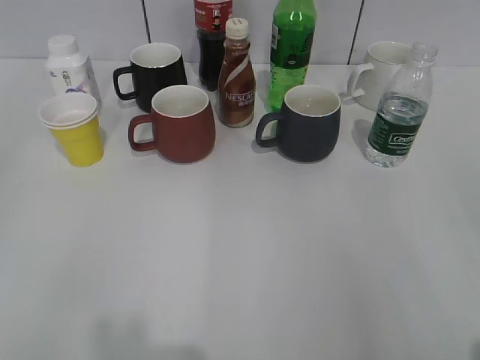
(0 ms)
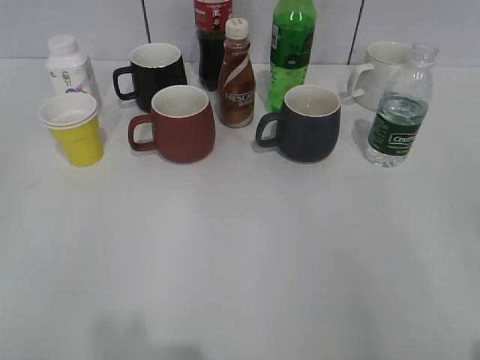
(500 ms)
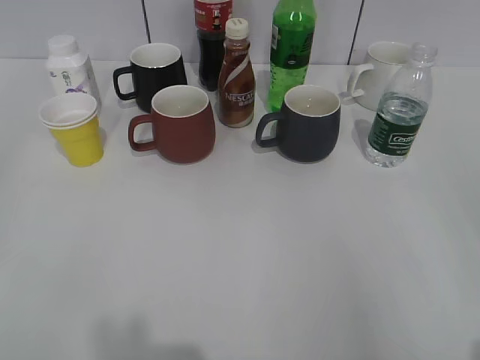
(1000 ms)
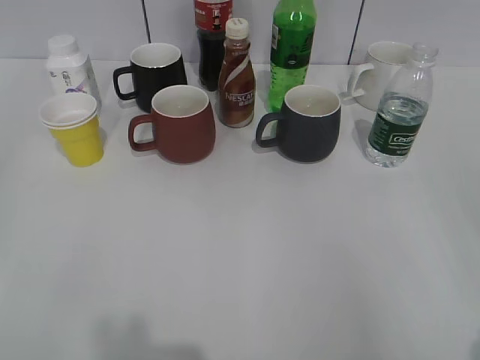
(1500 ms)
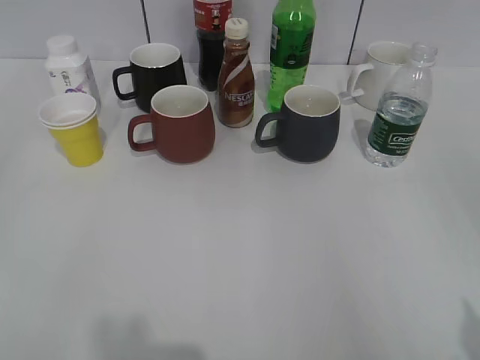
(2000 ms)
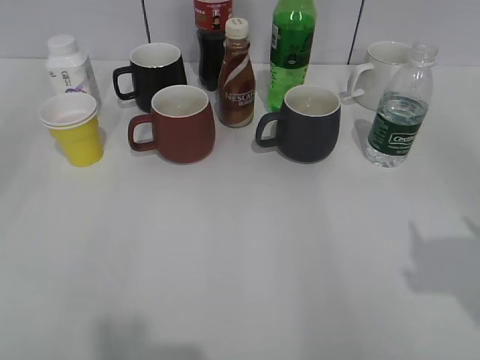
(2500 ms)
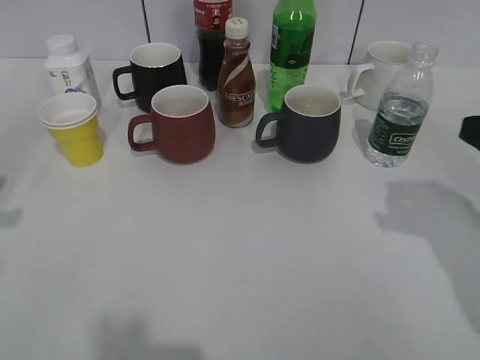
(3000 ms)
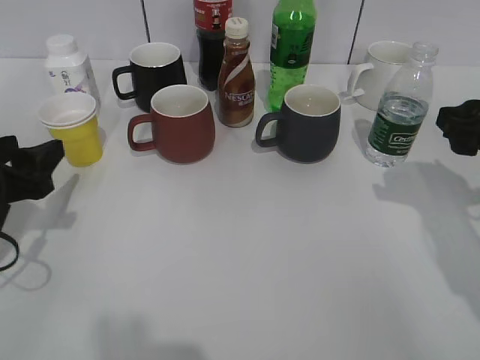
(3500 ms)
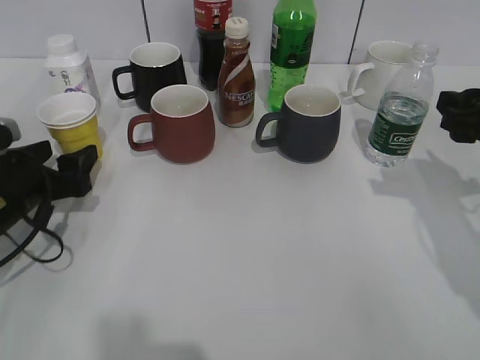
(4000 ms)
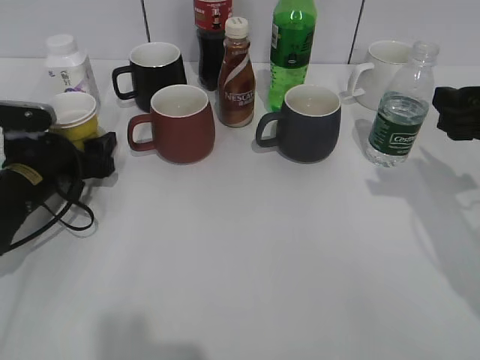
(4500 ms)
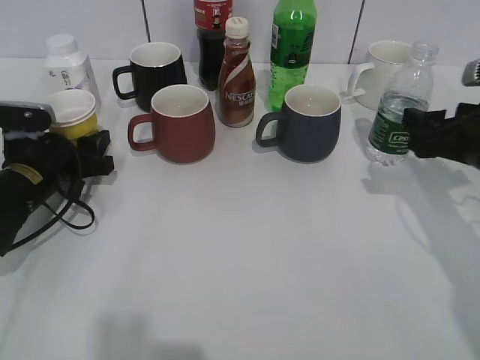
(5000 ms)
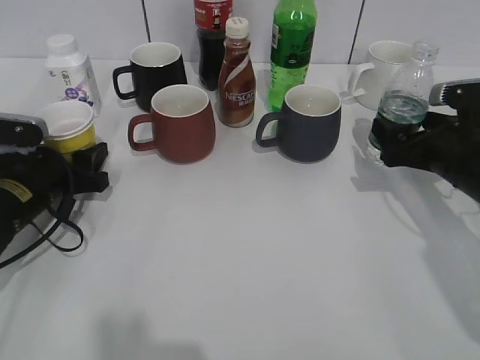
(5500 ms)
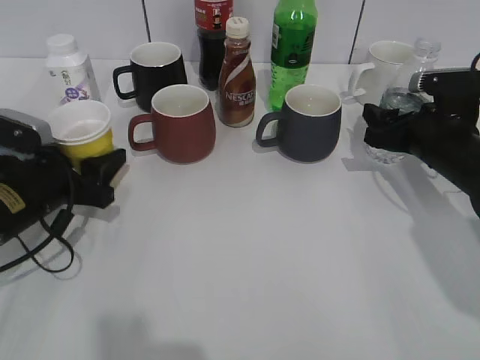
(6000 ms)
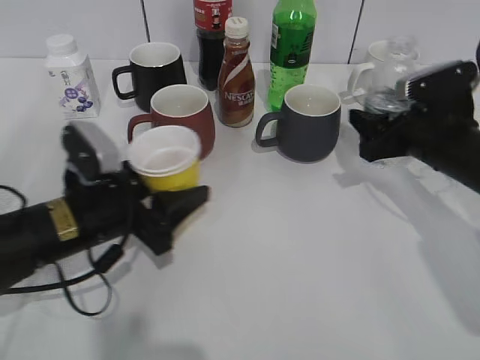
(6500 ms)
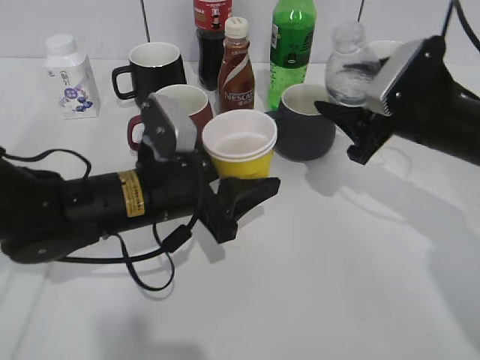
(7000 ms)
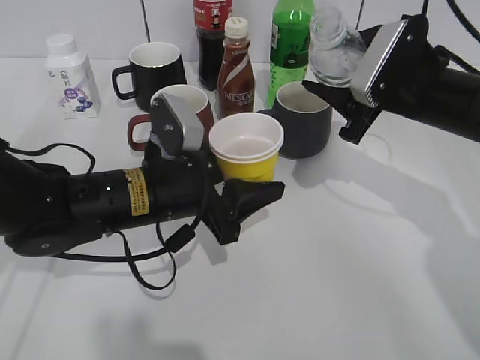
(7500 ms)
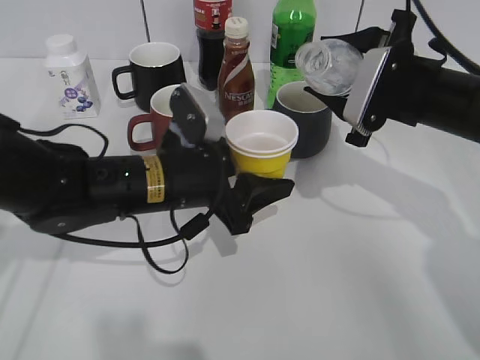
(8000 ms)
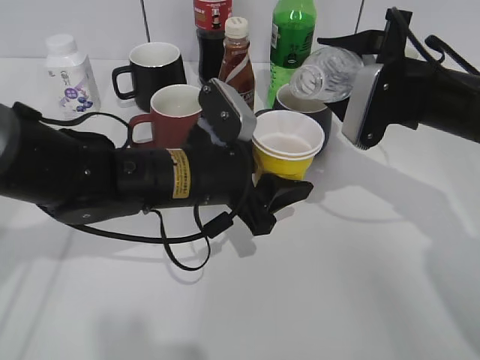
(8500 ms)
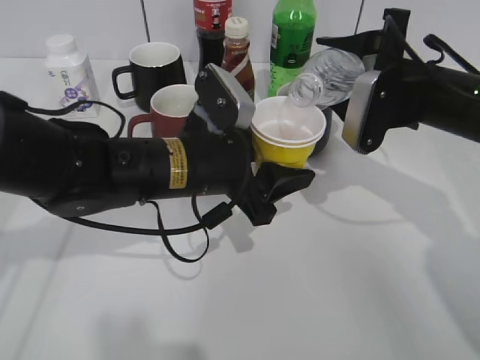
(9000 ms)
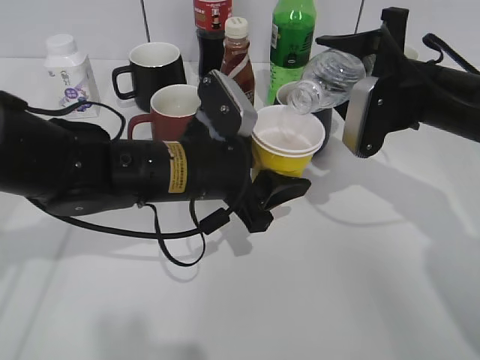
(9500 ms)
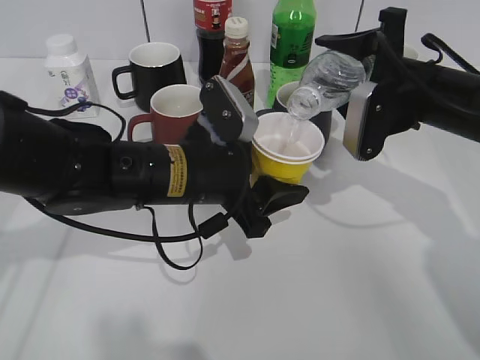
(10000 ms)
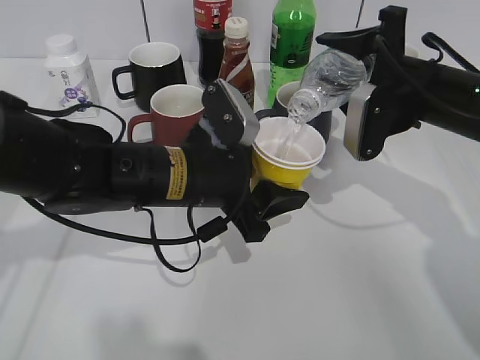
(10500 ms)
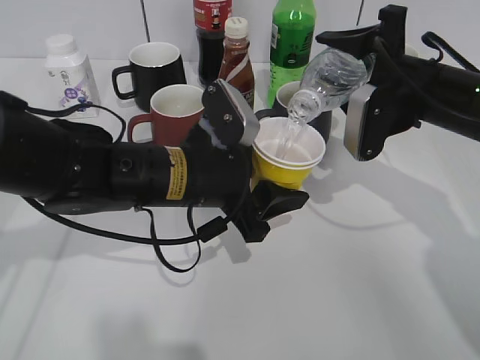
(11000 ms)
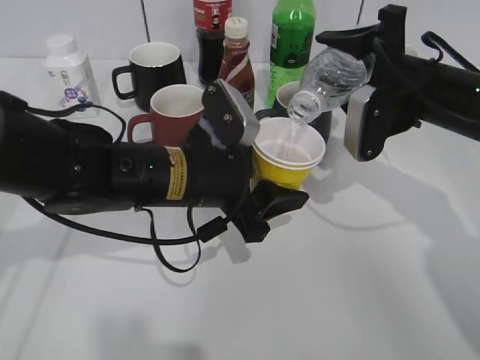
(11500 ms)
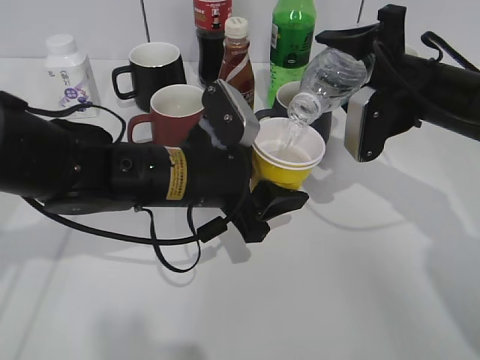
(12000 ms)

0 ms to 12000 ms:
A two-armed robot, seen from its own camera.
Step, 2000 ms to 4500 ms: Grasp the yellow paper cup with left gripper.
Step, 5000 ms to 6000 ms: Grasp the bottle with water with right gripper.
2000 ms to 4000 ms: The right gripper heads forward, covering approximately 25 cm, while the left gripper heads forward and downward, covering approximately 30 cm, and opens its fingers.
4000 ms to 6000 ms: The right gripper shifts about 10 cm downward and forward, and opens and closes again. Meanwhile the left gripper closes its fingers.
6000 ms to 8000 ms: The left gripper is displaced to the right by approximately 15 cm. The right gripper shifts some 10 cm upward and to the left.
10000 ms to 12000 ms: The grippers stay close to where they were, moving slightly.

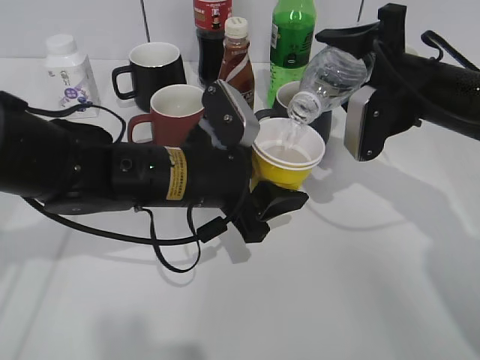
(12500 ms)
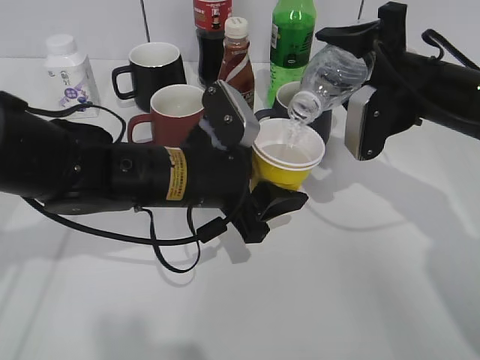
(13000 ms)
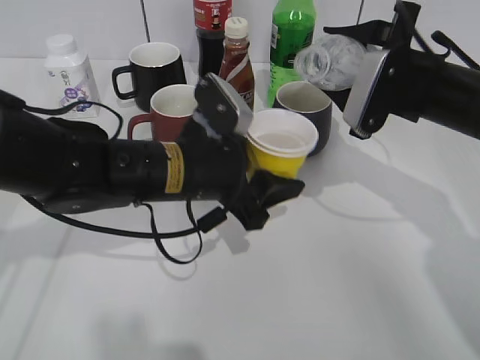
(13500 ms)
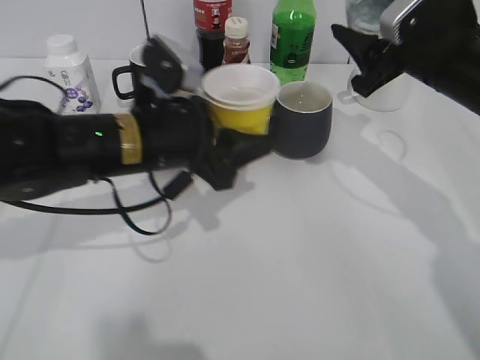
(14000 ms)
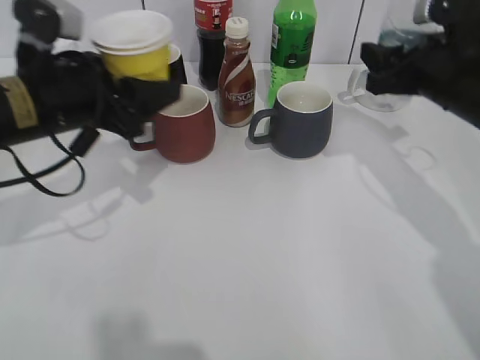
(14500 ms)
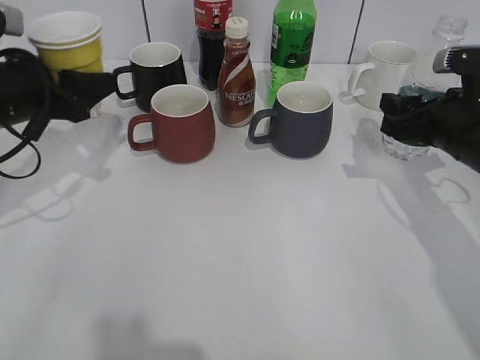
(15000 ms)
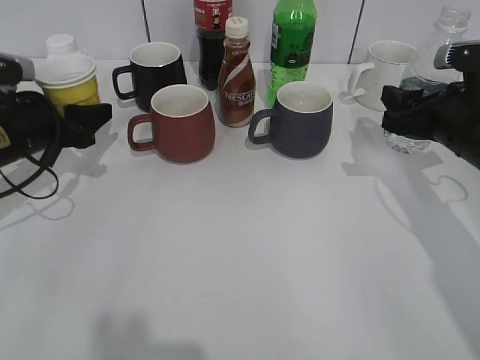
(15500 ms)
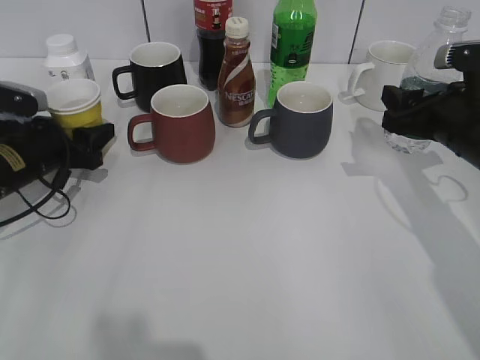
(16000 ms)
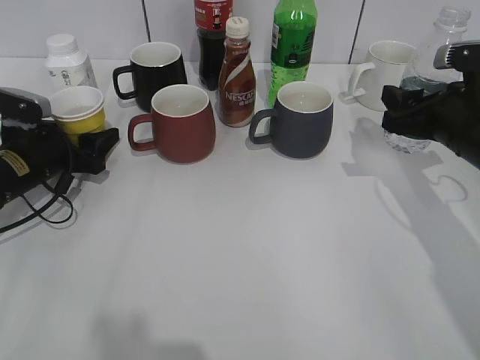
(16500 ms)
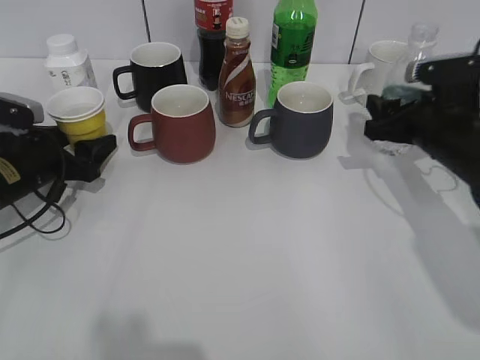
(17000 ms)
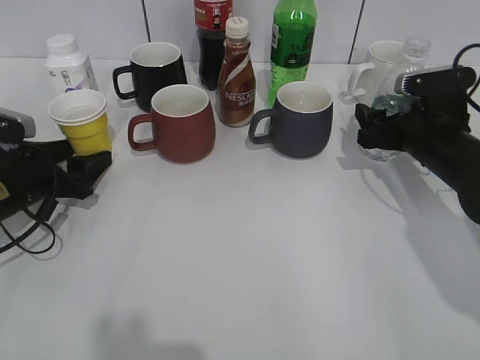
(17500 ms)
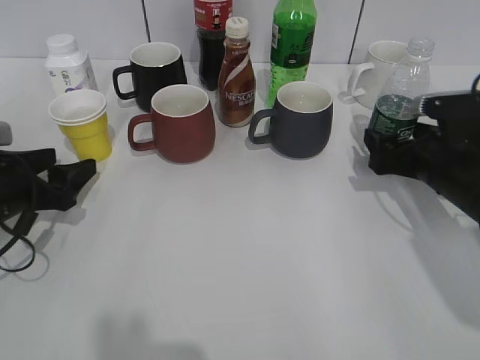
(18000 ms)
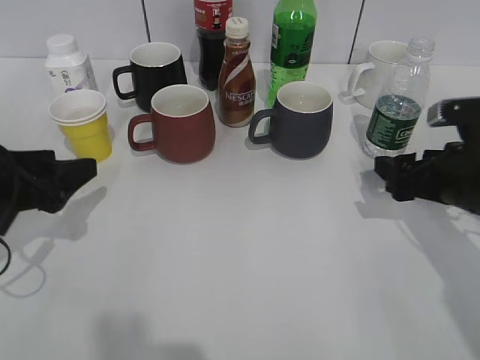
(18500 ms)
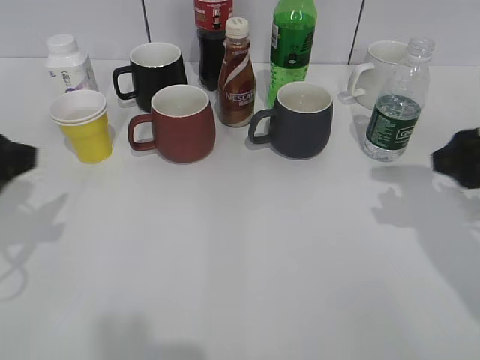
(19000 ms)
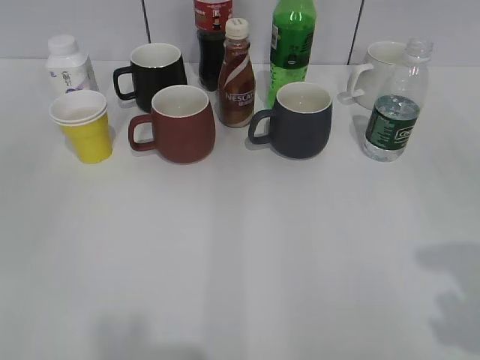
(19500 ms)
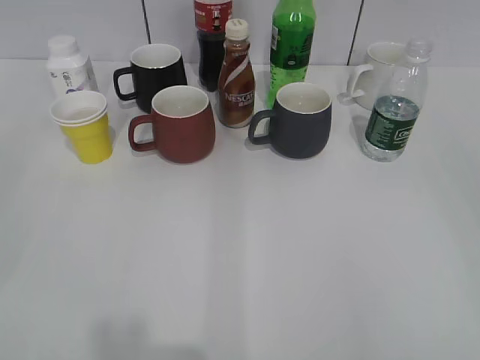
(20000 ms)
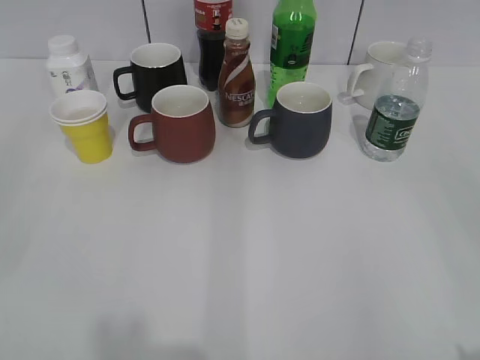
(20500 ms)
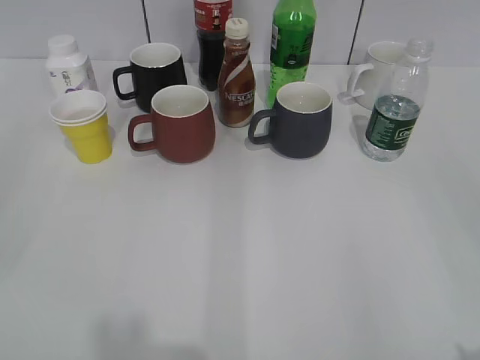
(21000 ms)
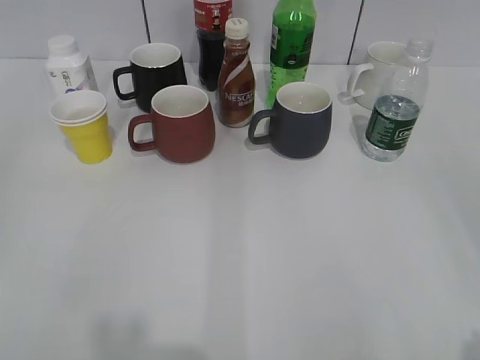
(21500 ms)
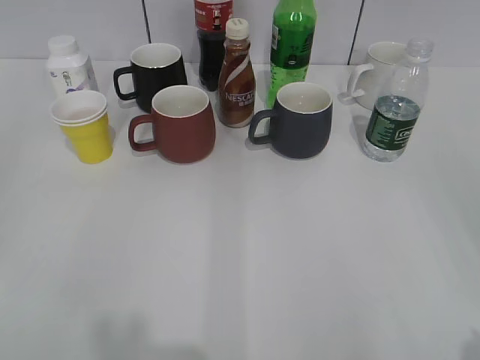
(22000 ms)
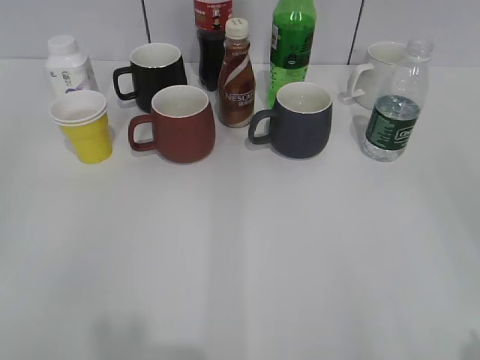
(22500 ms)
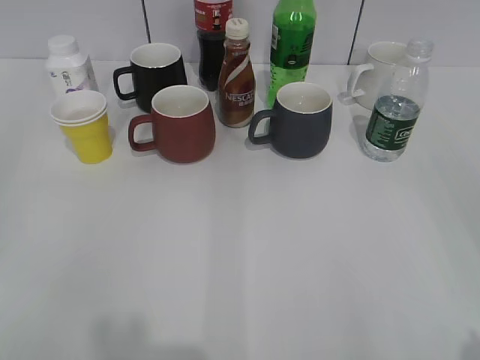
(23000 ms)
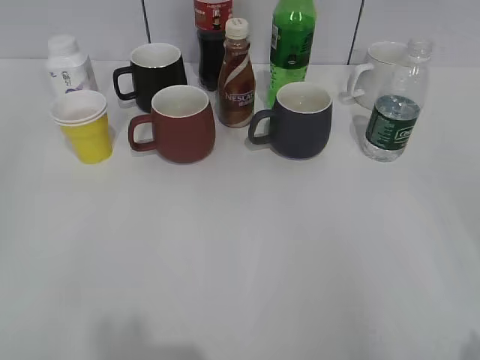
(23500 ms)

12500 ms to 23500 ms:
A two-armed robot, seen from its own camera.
Step, 14000 ms to 17000 ms: Place the yellow paper cup on the table with left gripper.
Step, 17500 ms to 18000 ms: Place the water bottle on the table with right gripper.
12500 ms to 14500 ms: The left gripper heads to the left and upward, covering roughly 15 cm.
14500 ms to 16000 ms: The left gripper heads downward, to the left and forward, covering about 15 cm. The right gripper changes place by roughly 5 cm.
16000 ms to 18000 ms: The left gripper shifts about 10 cm backward, and opens up. Meanwhile the right gripper goes approximately 5 cm downward, and opens up.
18000 ms to 20000 ms: Both grippers move backward and upward, approximately 35 cm. The right gripper closes up.
21500 ms to 23500 ms: Neither gripper changes place.

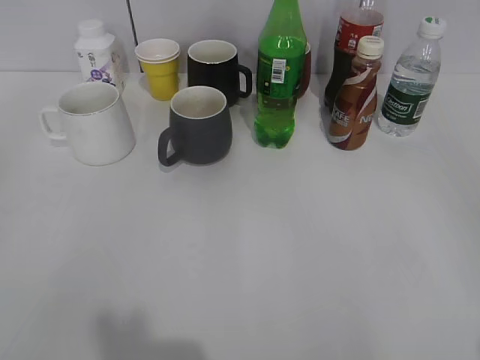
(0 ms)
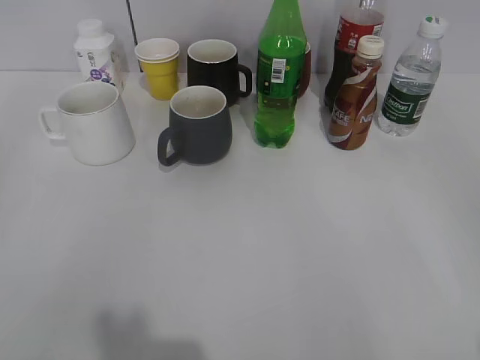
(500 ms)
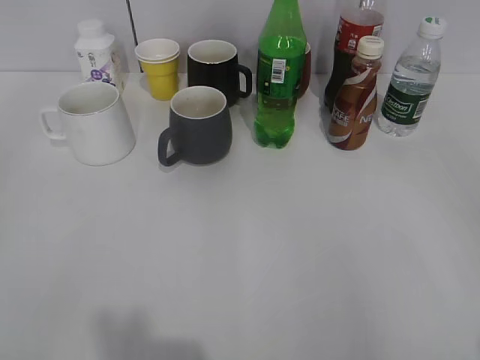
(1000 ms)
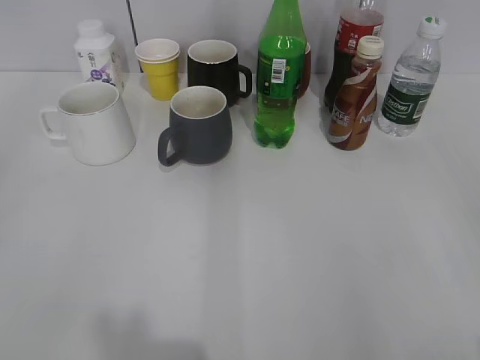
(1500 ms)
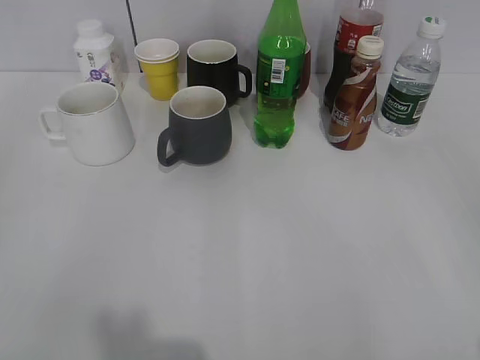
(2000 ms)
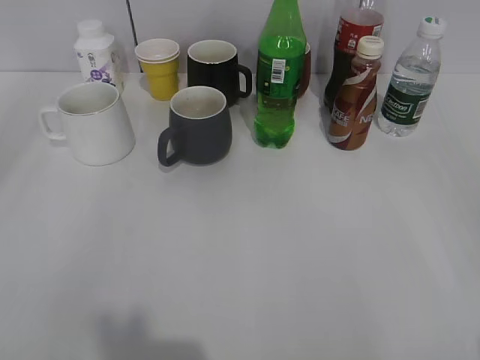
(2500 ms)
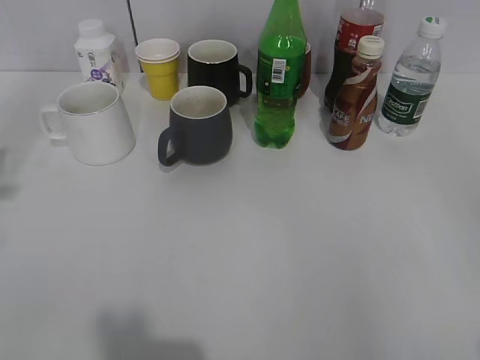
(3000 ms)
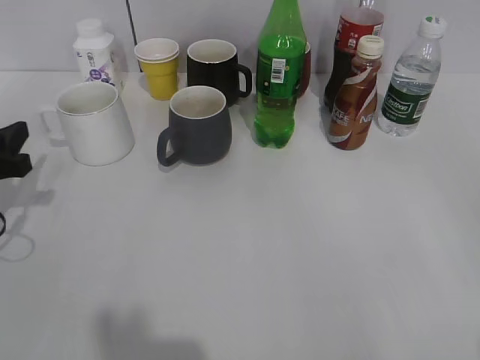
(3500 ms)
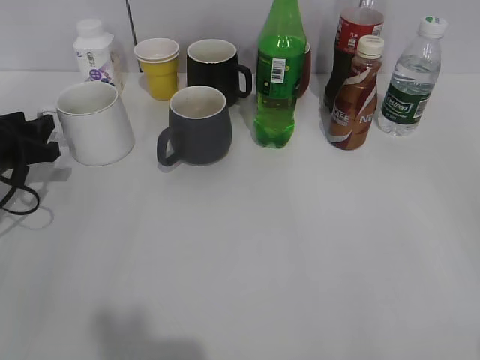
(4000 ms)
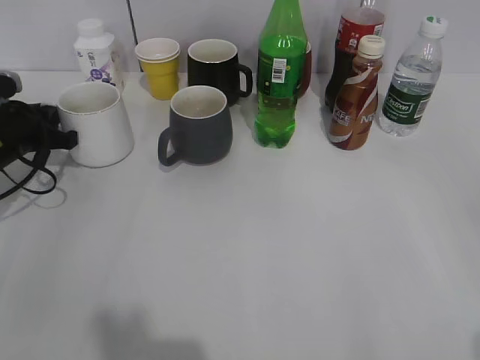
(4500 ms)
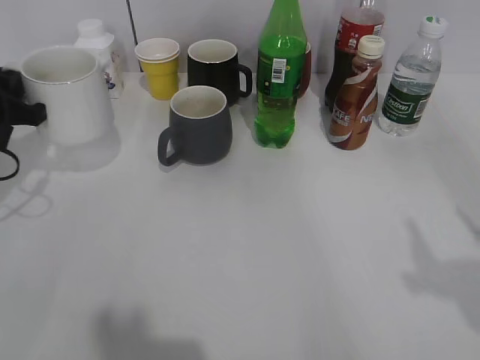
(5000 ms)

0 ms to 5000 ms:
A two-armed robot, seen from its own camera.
Step, 2000 ms to 4500 ms: Grasp the white cup with left gripper.
2500 ms to 5000 ms: The left gripper is displaced forward and downward by about 30 cm, and closes its fingers.
